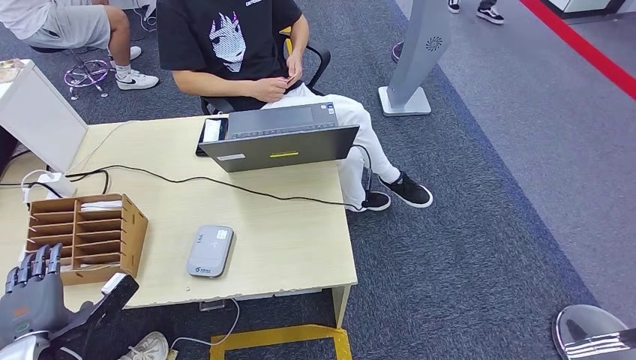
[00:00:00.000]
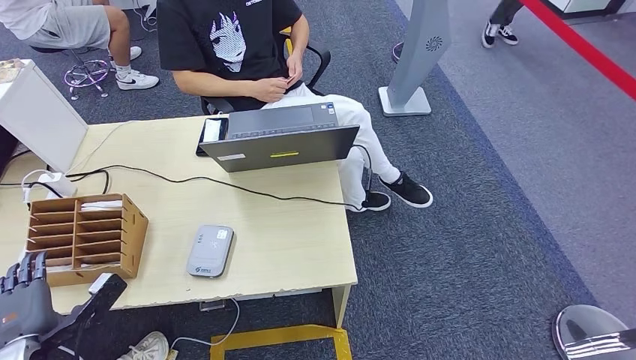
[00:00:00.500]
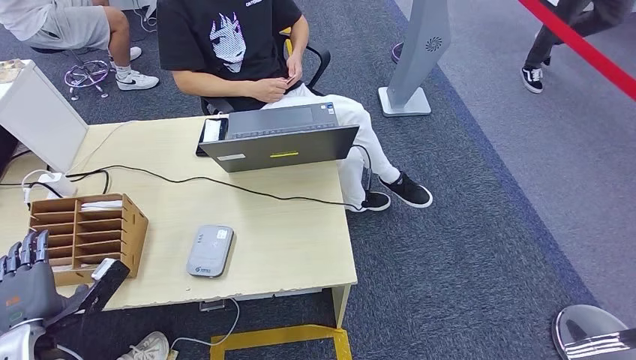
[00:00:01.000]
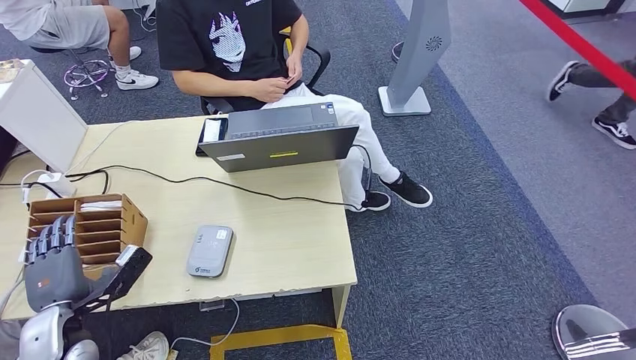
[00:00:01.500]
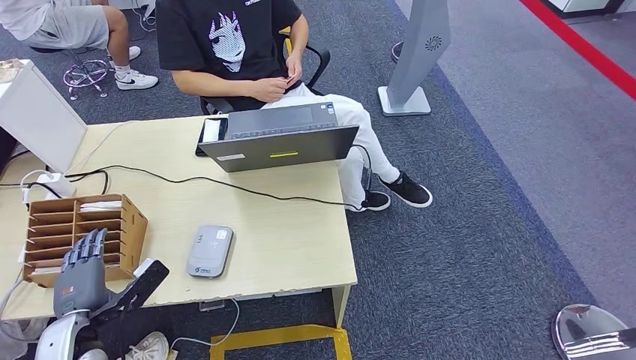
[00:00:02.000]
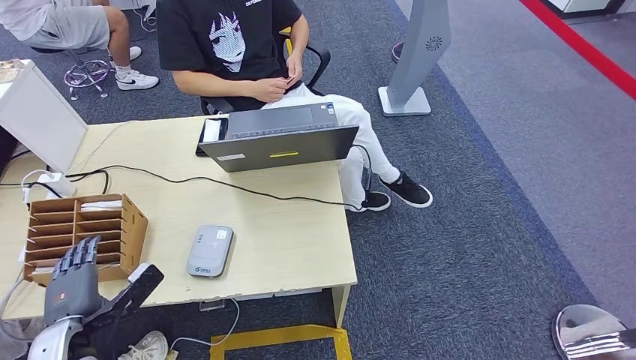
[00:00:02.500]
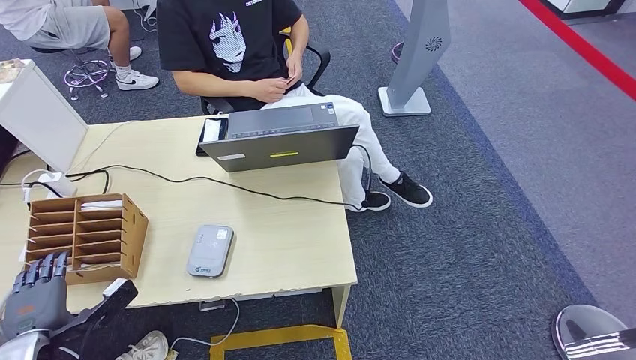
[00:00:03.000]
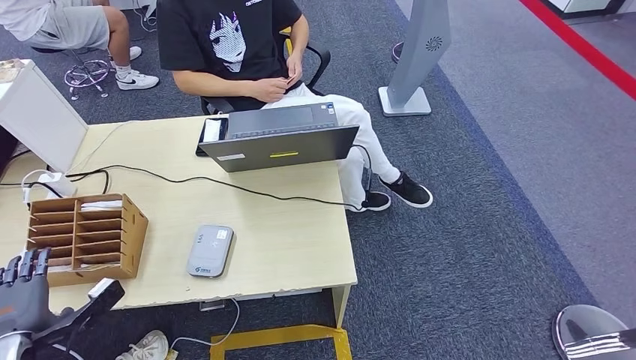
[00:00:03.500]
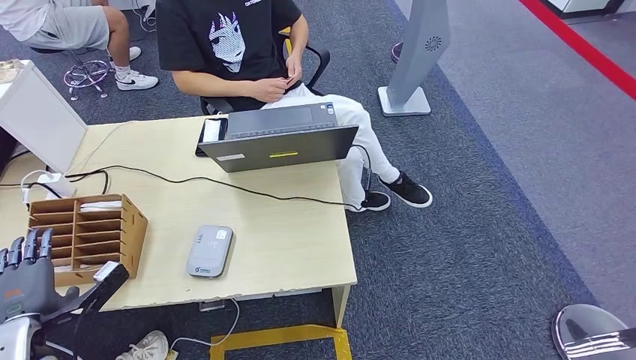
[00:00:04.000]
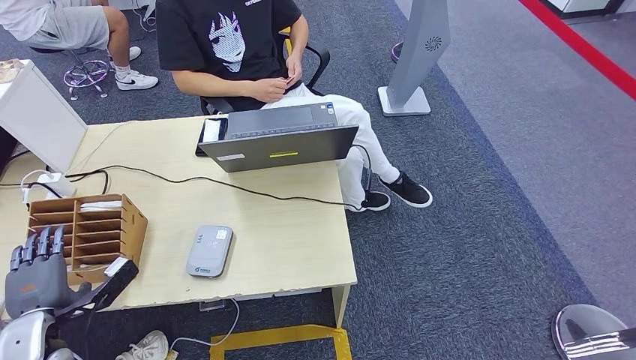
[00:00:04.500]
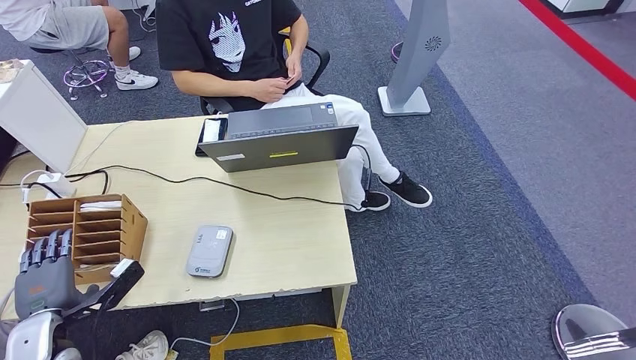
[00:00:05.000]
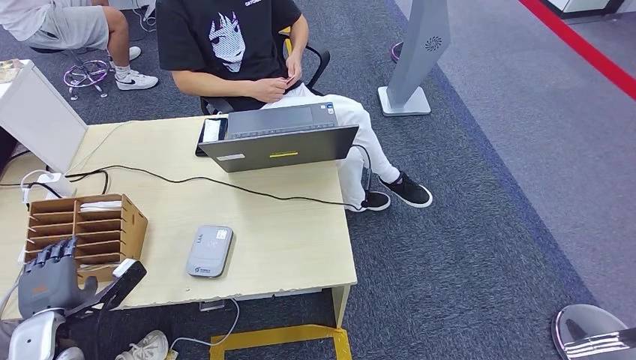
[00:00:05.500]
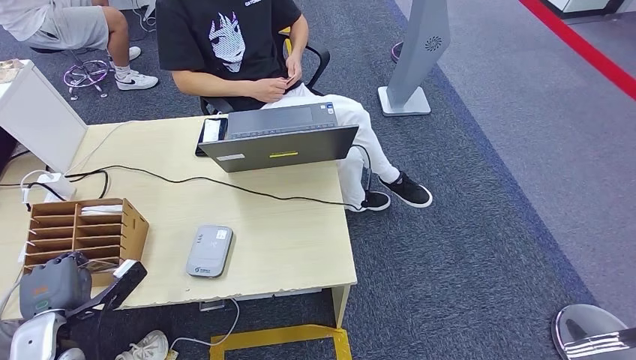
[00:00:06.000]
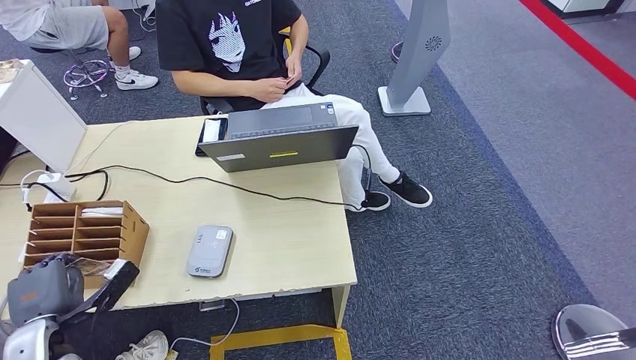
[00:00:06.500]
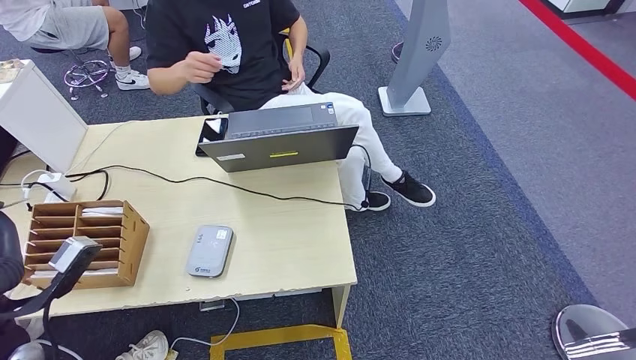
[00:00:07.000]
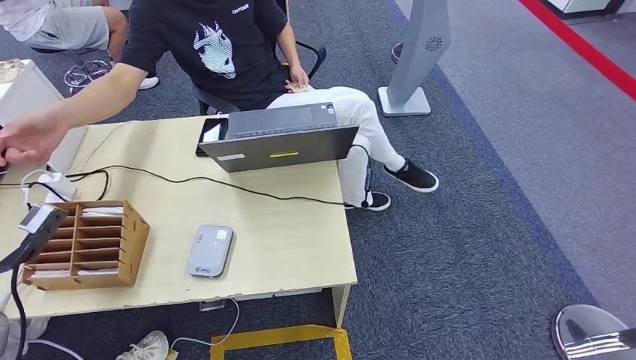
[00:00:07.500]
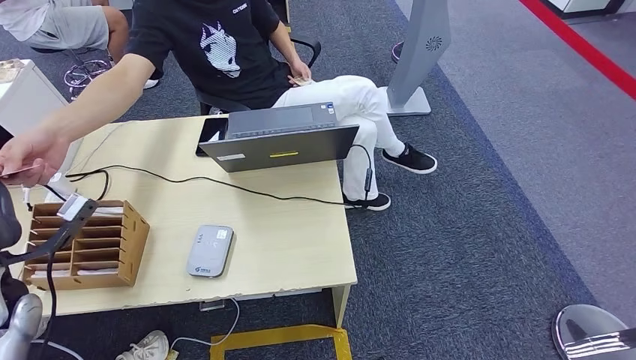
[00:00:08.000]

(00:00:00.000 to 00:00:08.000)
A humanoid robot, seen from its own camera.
Step, 00:00:00.000 - 00:00:06.500: Pick up the room key from the key card box.
Step, 00:00:07.000 - 00:00:08.000: Hand the room key to the person.
00:00:00.000 - 00:00:02.000: The left hand shifts by approximately 5 cm.
00:00:02.000 - 00:00:04.000: The left hand is displaced to the left by some 5 cm.
00:00:04.000 - 00:00:06.000: The hands move only a little.
00:00:06.000 - 00:00:08.000: The left hand is displaced upward and forward by roughly 15 cm.
